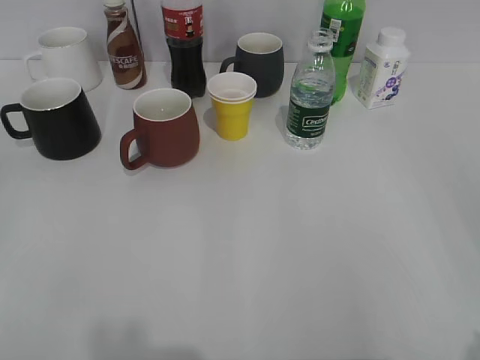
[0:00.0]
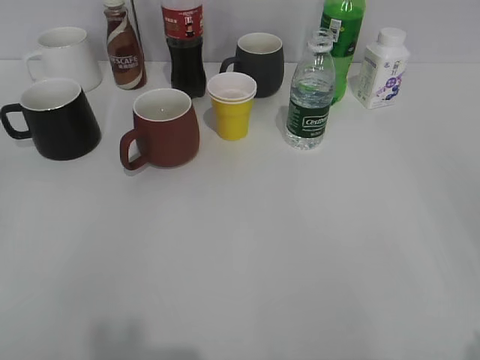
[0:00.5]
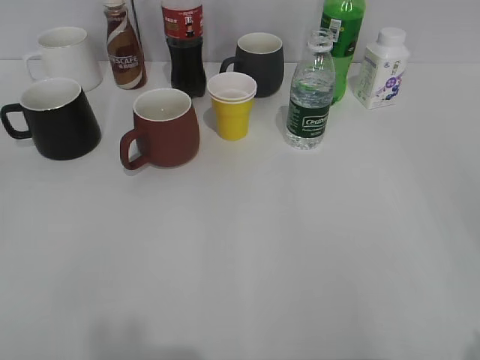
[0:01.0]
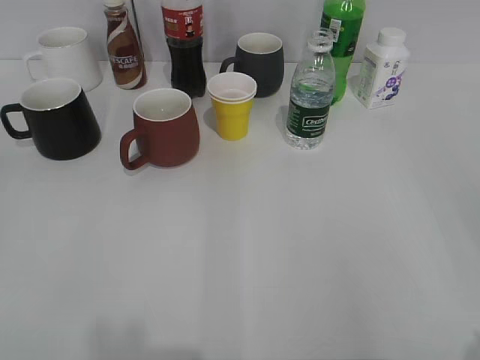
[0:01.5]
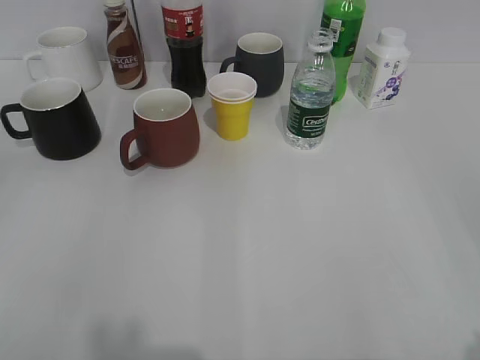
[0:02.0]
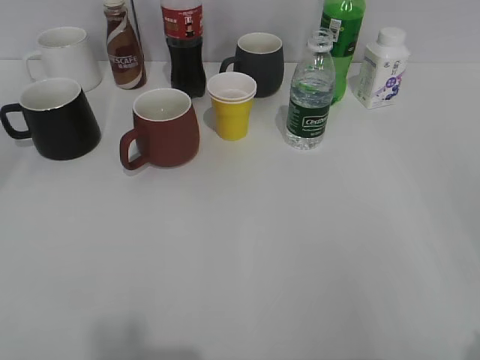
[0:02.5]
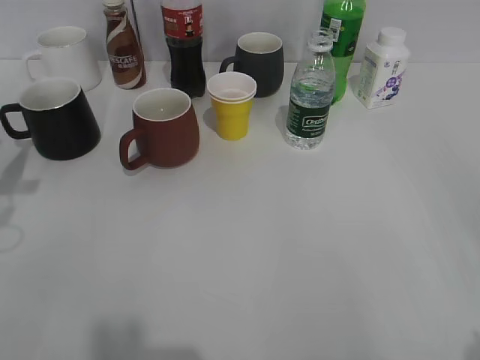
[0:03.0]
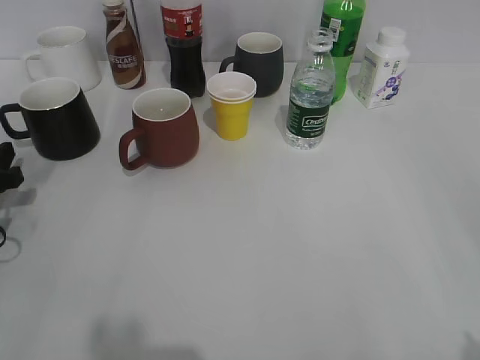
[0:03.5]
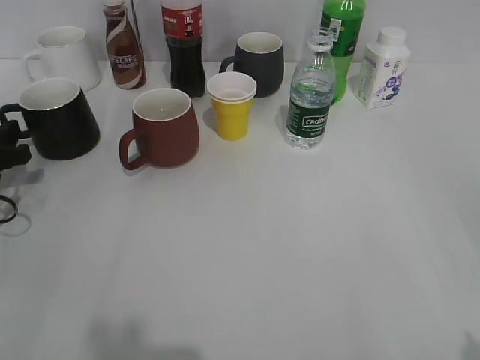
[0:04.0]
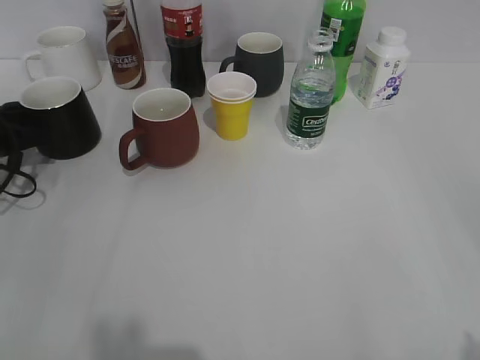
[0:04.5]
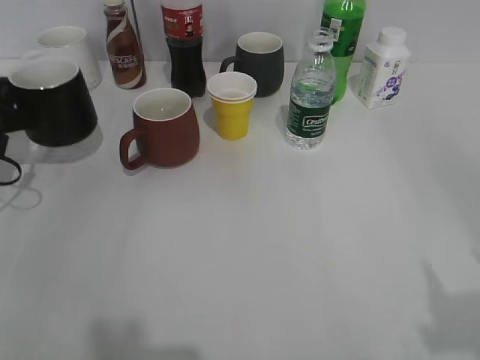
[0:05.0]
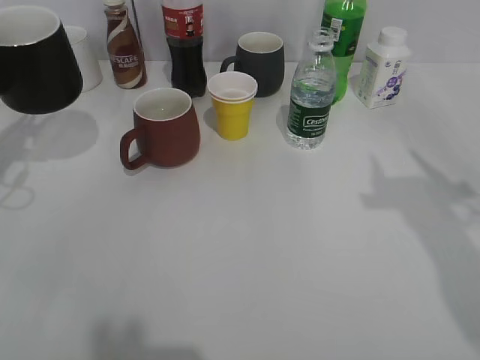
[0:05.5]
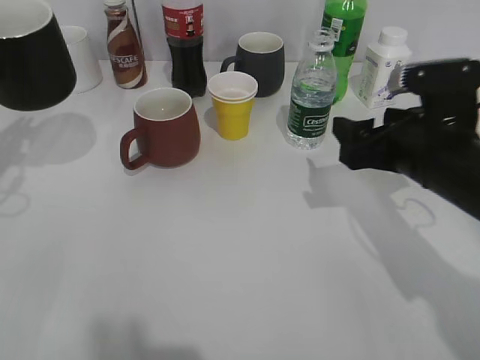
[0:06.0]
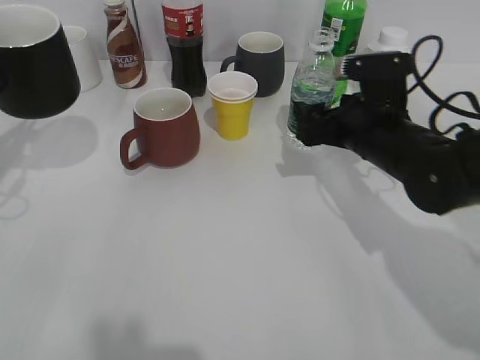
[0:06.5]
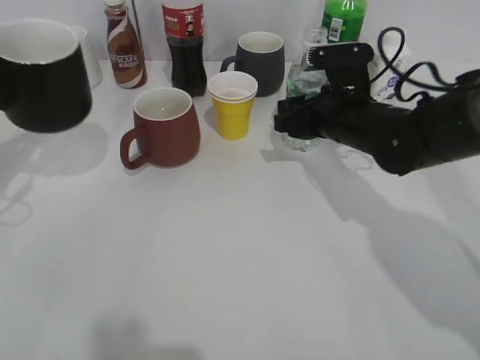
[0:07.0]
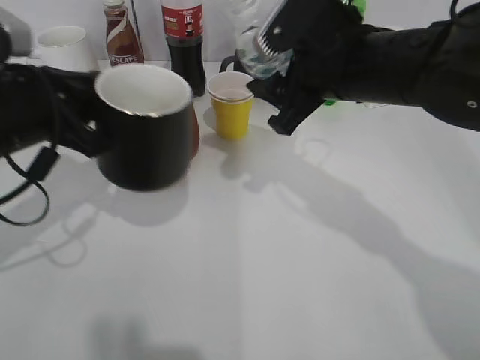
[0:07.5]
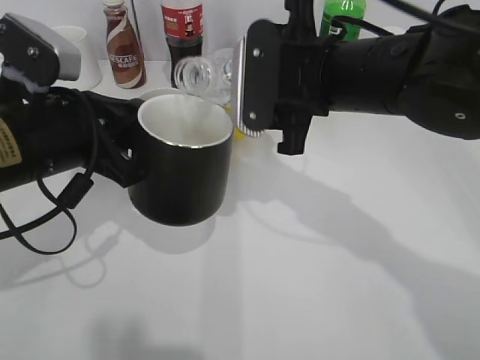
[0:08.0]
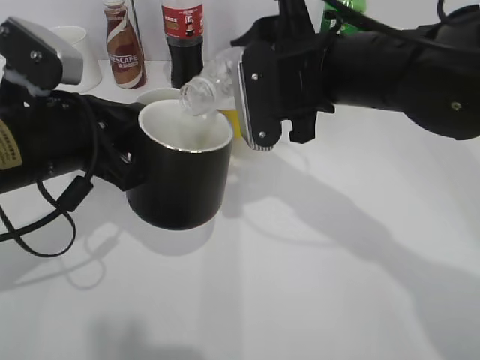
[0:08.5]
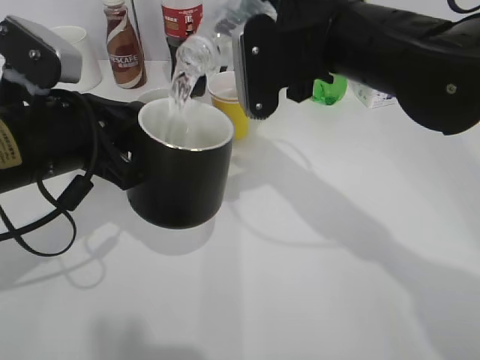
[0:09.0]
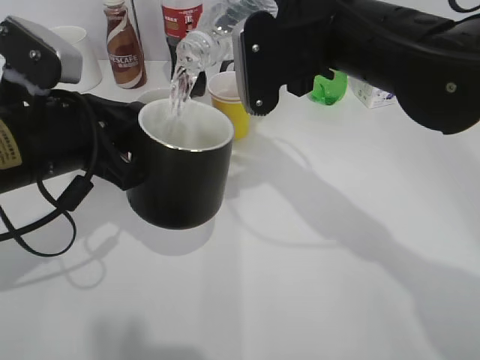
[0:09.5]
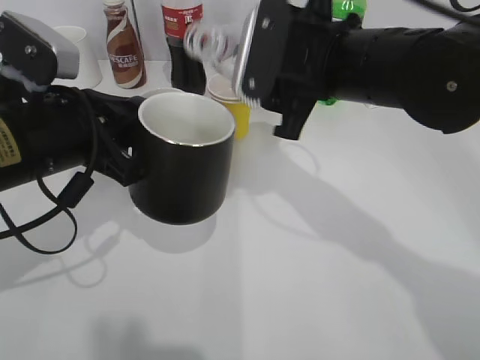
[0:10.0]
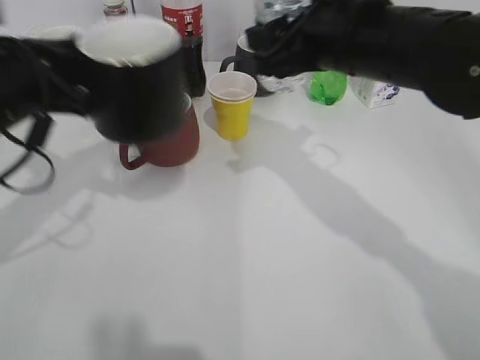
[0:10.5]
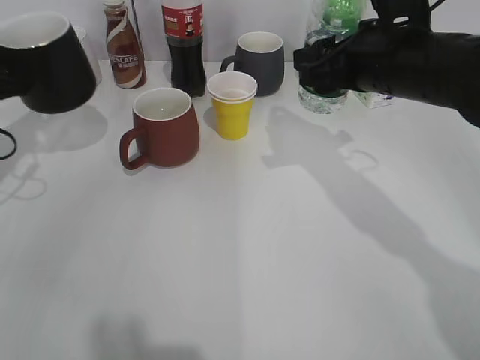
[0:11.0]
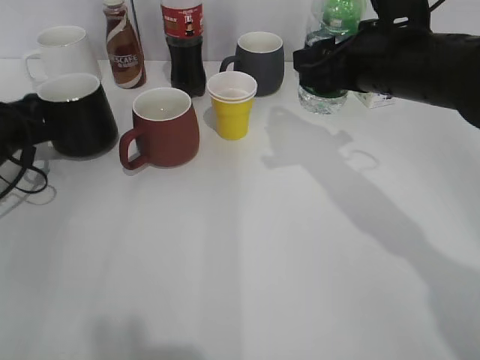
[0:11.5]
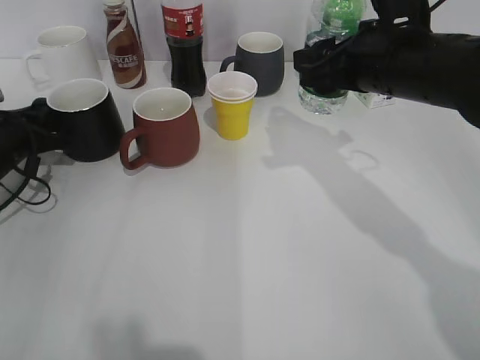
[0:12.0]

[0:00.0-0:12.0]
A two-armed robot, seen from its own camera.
Step, 0:02.0 to 0:04.5: Grasp the black cup with left gripper.
Step, 0:05.0 to 0:05.5: Lift the black cup with left gripper.
Step, 0:06.0 to 0:06.5: Grasp the bottle with water with right gripper.
Step, 0:07.0 to 0:09.5: Pour the water from bottle to cup with right gripper.
0:02.0 to 0:04.0: The left gripper is displaced forward and downward by approximately 35 cm.
0:04.0 to 0:06.0: The left gripper is displaced upward by approximately 10 cm, and closes up. The right gripper shifts some 25 cm forward, and opens its fingers.
0:06.0 to 0:08.0: The left gripper moves to the right and backward, about 15 cm, while the right gripper shifts some 15 cm to the left and upward, and closes up.
0:10.0 to 0:12.0: The left gripper is displaced to the left, forward and downward by some 20 cm. Meanwhile the right gripper is displaced to the right by some 5 cm.

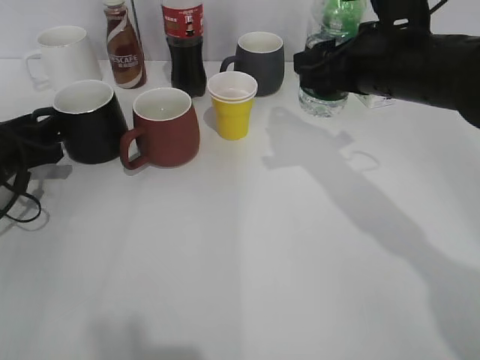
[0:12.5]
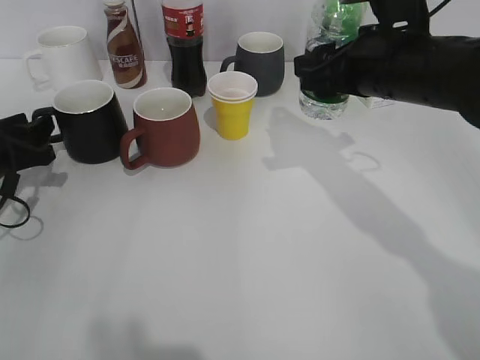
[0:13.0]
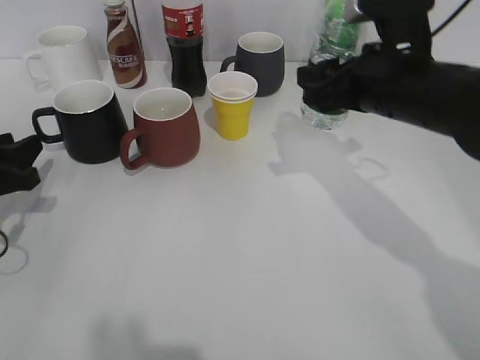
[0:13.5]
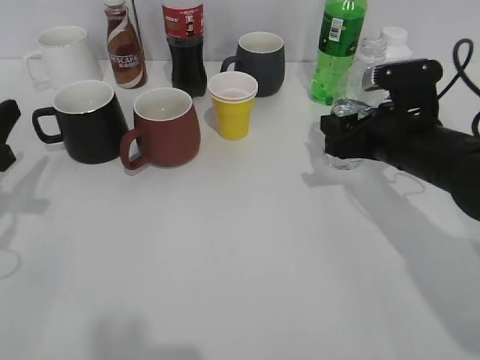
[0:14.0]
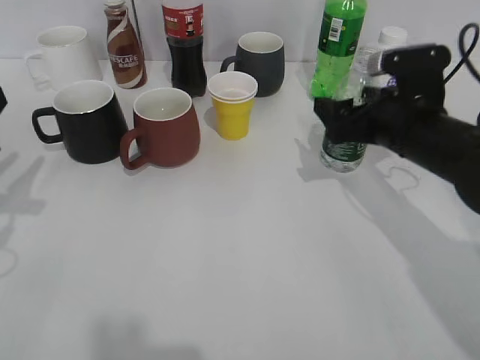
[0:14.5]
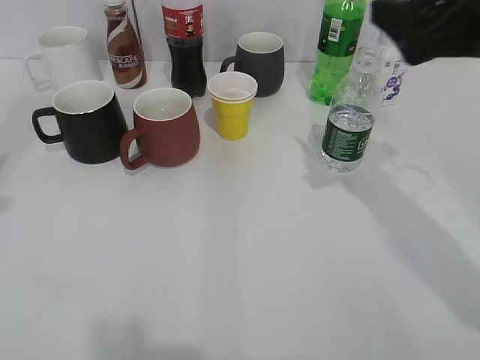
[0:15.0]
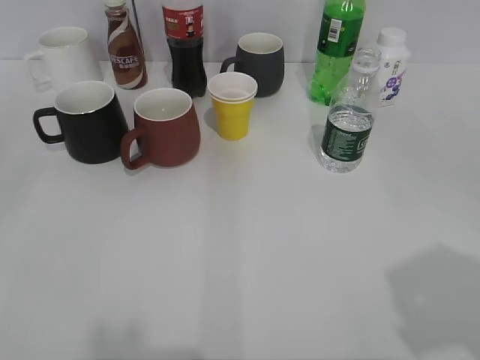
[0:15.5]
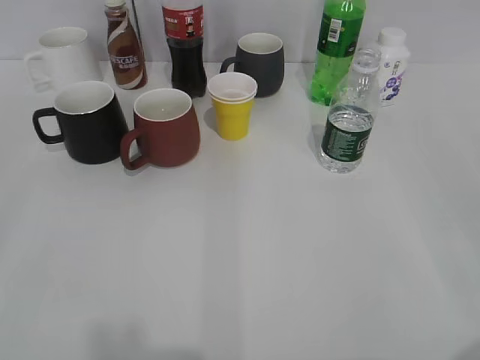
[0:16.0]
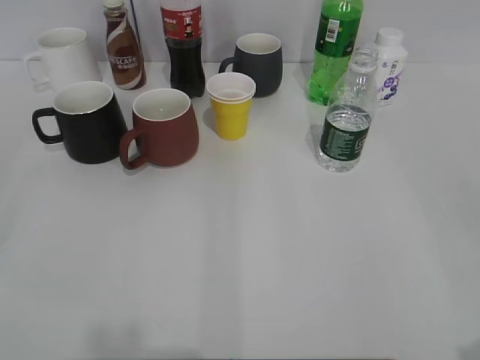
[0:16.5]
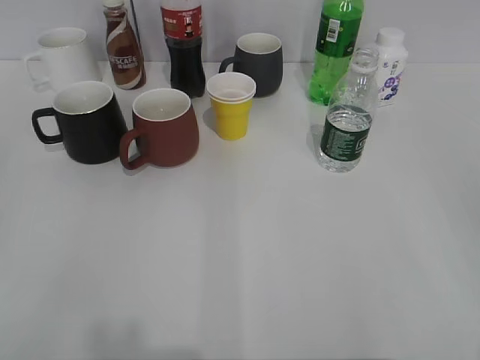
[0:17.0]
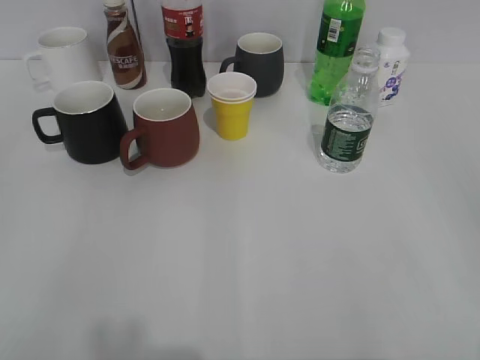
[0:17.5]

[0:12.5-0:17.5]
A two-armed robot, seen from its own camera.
Step, 0:12.5 to 0:14.5: Place the water bottle on the table with right gripper.
0:12.5 to 0:15.0: The right gripper shifts about 10 cm upward, backward and to the right, and opens, while the left gripper shifts roughly 30 cm upward and backward.
0:15.0 to 0:17.5: The right gripper moves backward, roughly 25 cm, and closes; the left gripper travels backward by approximately 15 cm.

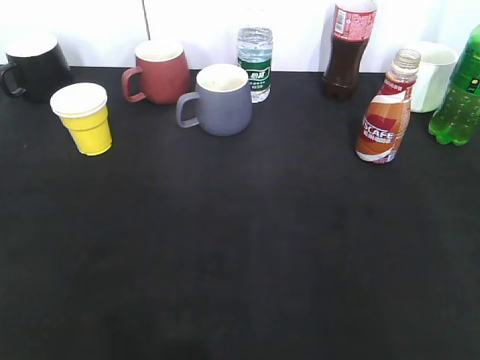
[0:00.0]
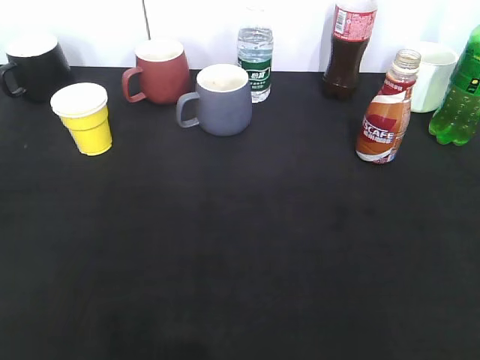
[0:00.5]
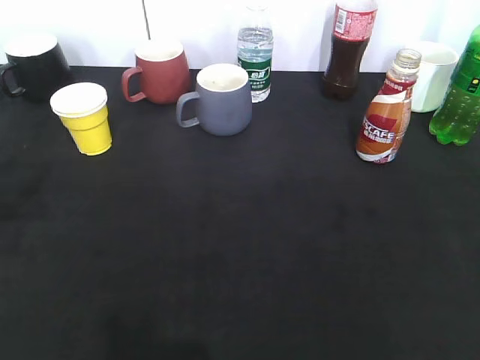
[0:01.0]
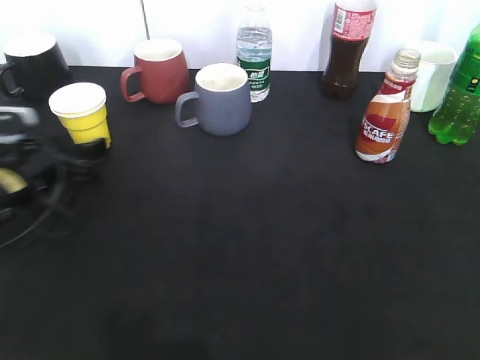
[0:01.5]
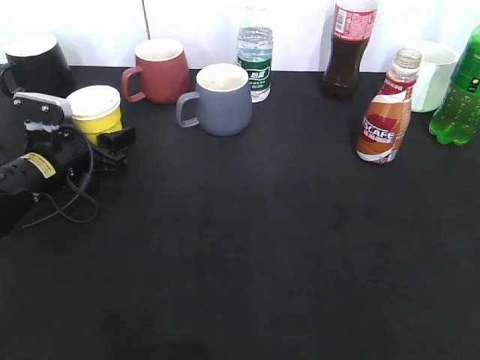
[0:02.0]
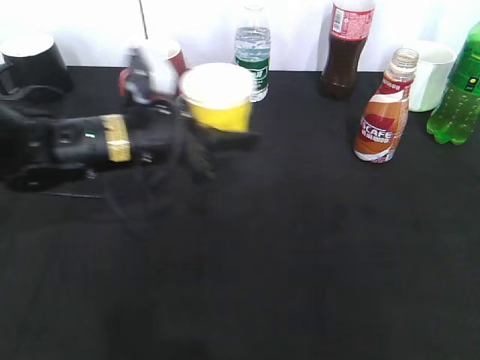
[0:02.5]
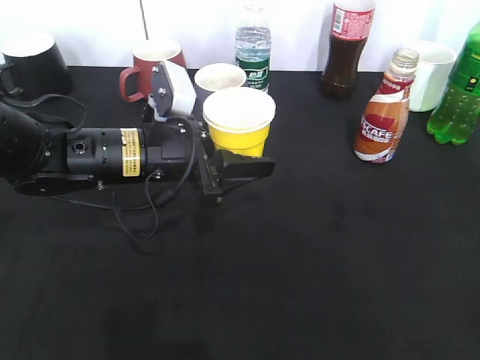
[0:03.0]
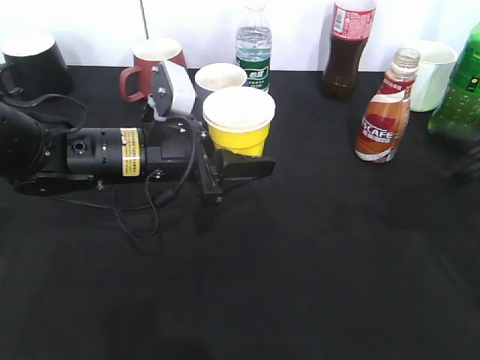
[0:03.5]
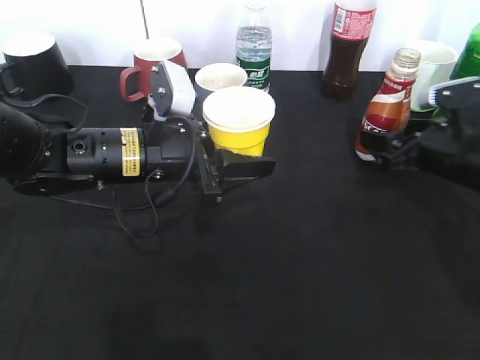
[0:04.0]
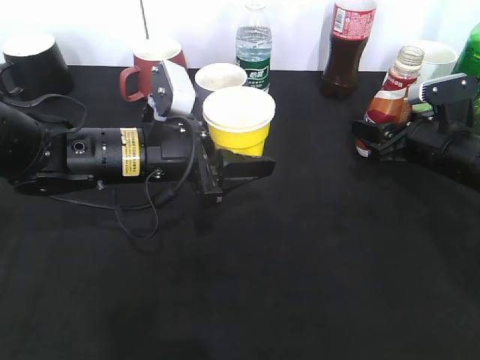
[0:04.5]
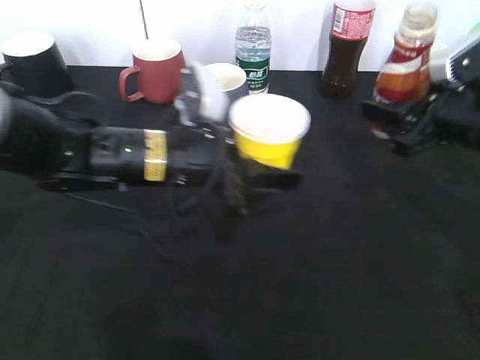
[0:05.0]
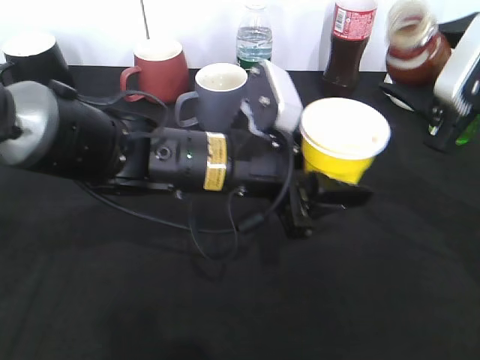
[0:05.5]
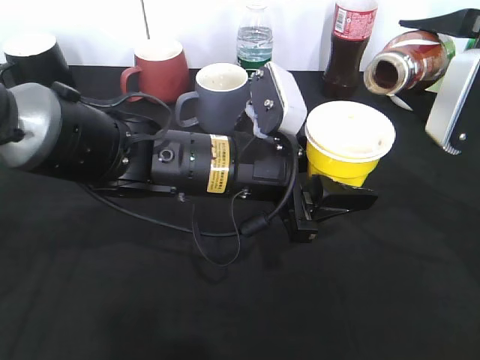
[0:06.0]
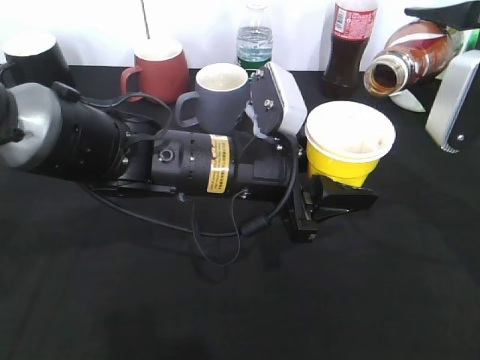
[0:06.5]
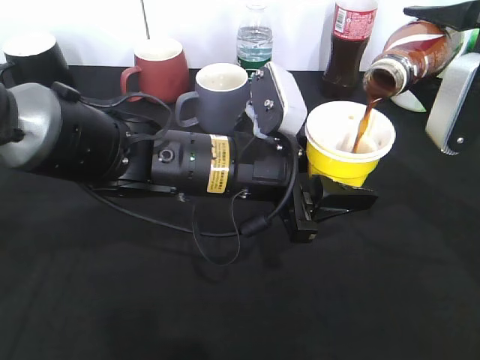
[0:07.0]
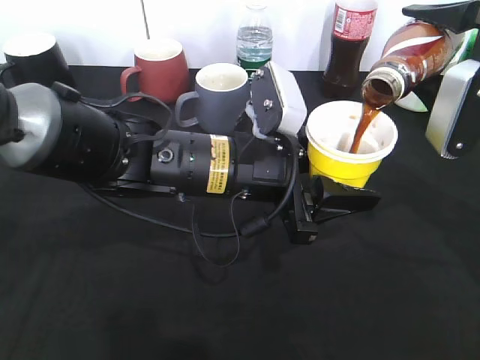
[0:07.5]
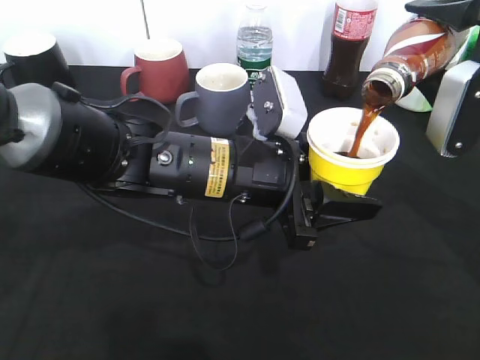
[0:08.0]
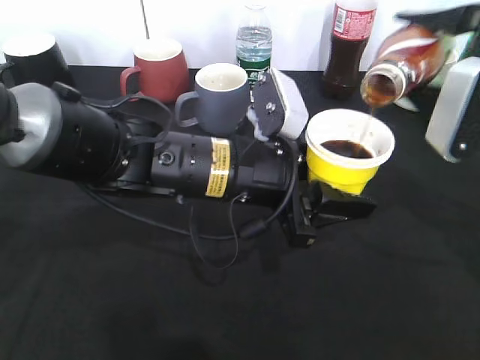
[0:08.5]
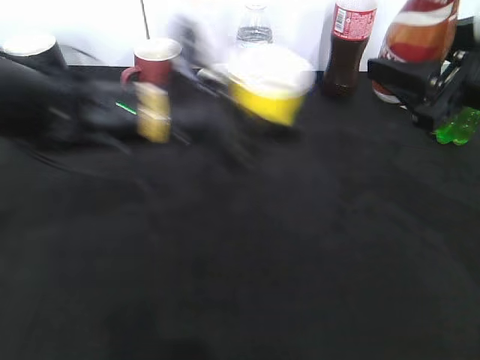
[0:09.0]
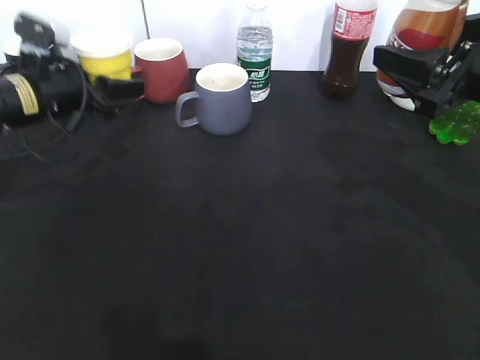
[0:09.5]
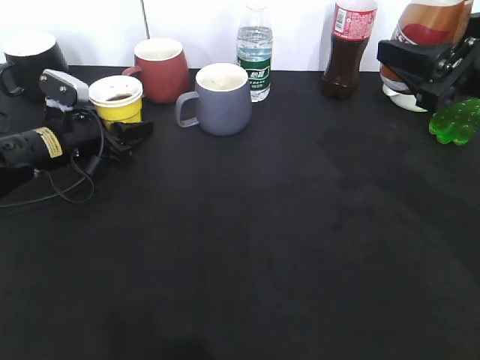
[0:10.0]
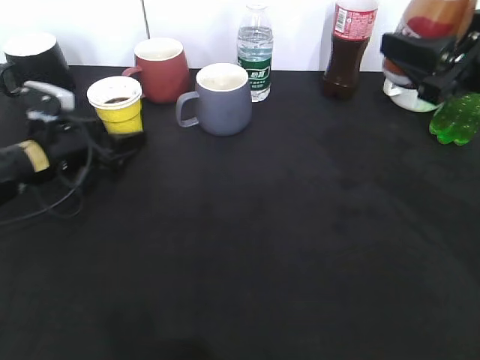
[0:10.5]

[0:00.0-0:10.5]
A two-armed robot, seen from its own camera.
Step, 0:01.0 to 0:01.5: Grasp the yellow paper cup with left gripper.
Step, 0:02.0 to 0:03.0: Lift the yellow paper cup with left gripper.
Step, 0:03.5 to 0:04.5: Grasp the bottle with coffee with right gripper.
Step, 0:05.0 to 0:08.5: Pour the coffee from bottle to cup with right gripper.
Step, 0:09.0 to 0:10.0: Place the yellow paper cup on the table with left gripper.
0:00.0 to 0:02.0: The left gripper is displaced forward and downward by some 40 cm, and opens and closes again.
0:02.0 to 0:04.0: The left gripper goes some 15 cm to the right and upward. Meanwhile the right gripper travels forward and downward by some 35 cm.
0:04.0 to 0:06.5: The left gripper goes about 10 cm to the right. The right gripper shifts about 15 cm upward, and closes its fingers.
0:06.5 to 0:08.5: There are only small adjustments of the grippers.
0:08.5 to 0:10.5: The left gripper shifts approximately 25 cm to the left and forward, and opens.
